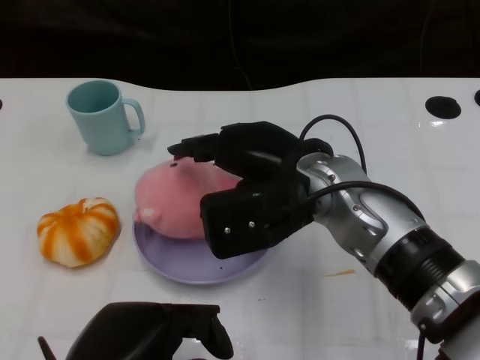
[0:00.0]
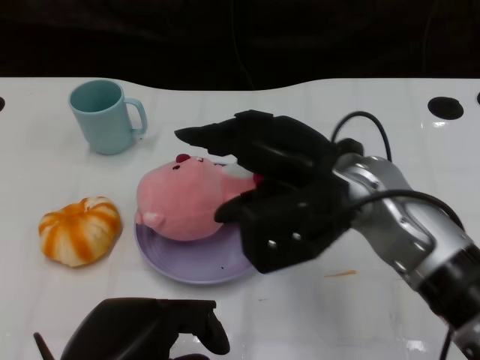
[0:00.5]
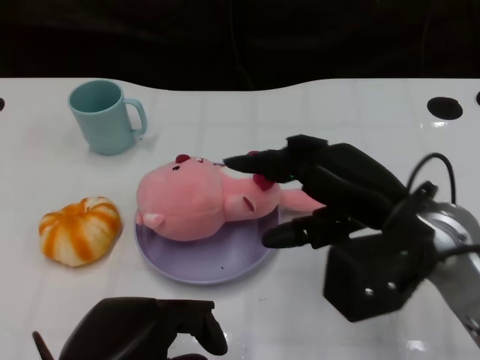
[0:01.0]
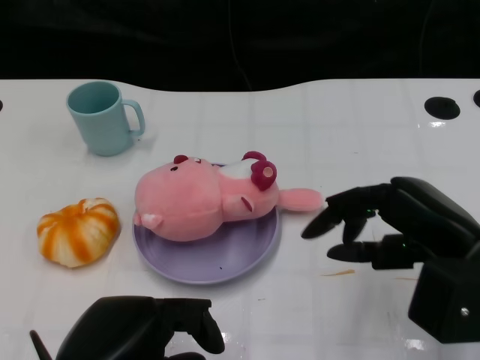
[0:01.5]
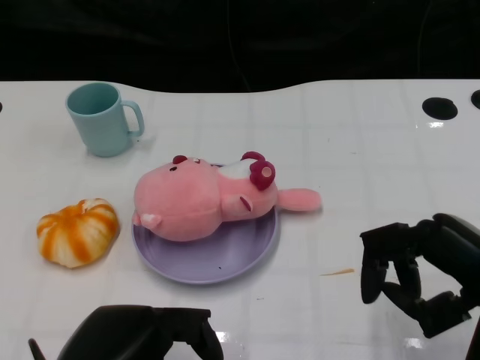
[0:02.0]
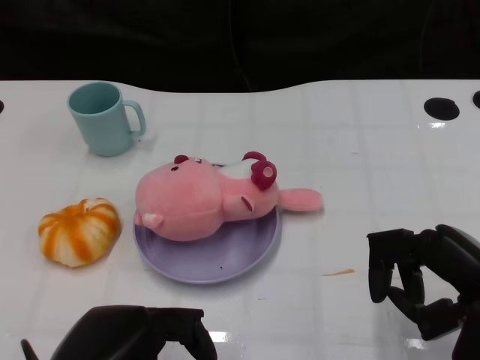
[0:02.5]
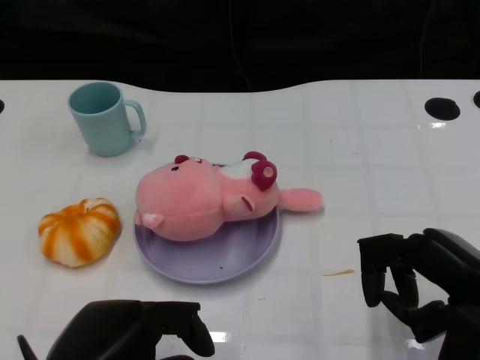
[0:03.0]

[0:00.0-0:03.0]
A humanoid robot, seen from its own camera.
Task of the whole recording: Pick up the doll on the other side of the plate and place it into the plate.
0:00.0 to 0:01.5: The right hand goes approximately 15 cm to the right and backward.
0:01.5 to 0:03.0: The right hand changes place by about 5 cm.

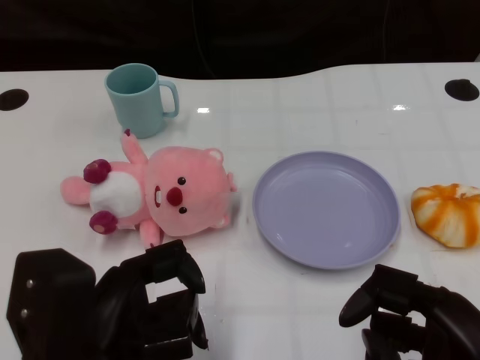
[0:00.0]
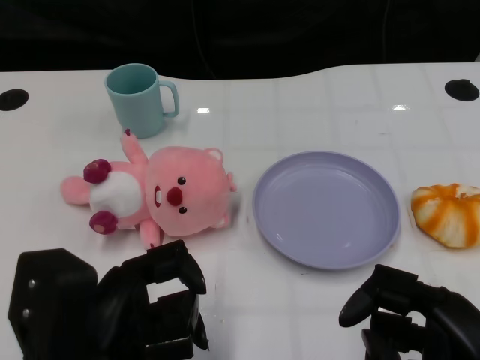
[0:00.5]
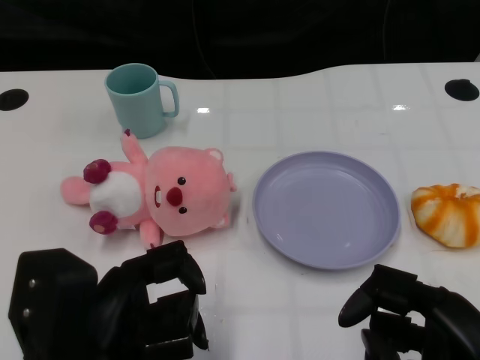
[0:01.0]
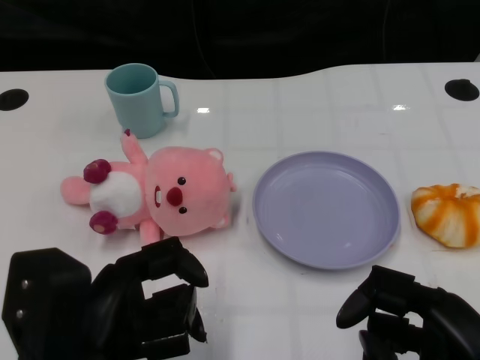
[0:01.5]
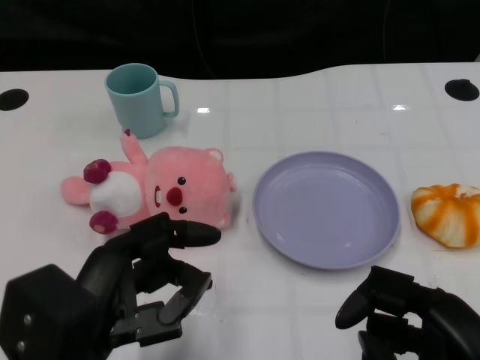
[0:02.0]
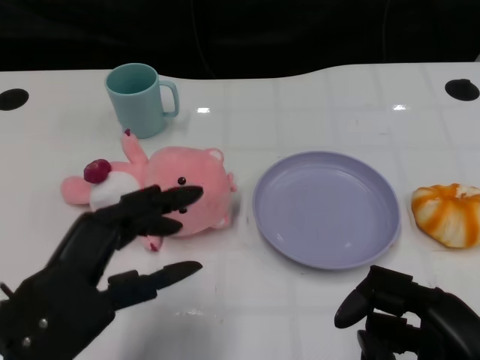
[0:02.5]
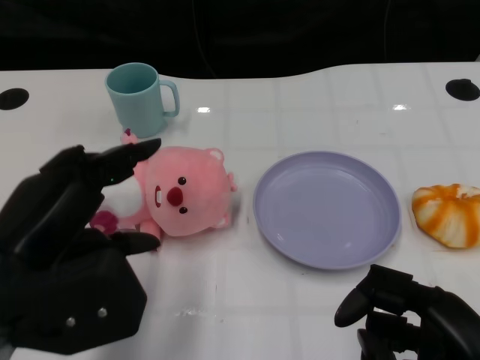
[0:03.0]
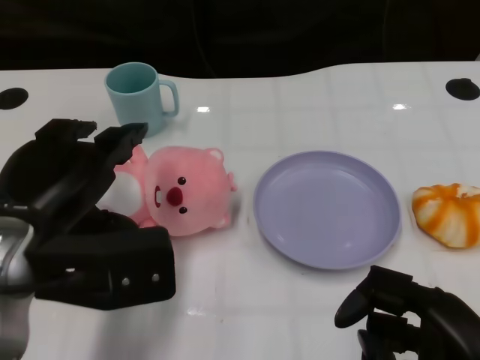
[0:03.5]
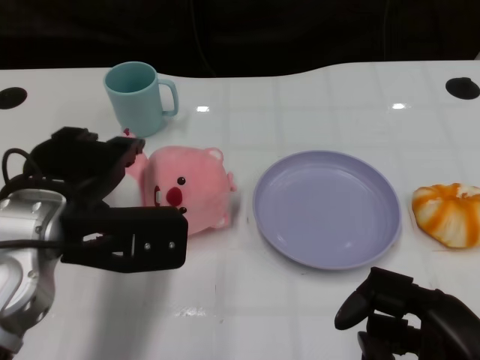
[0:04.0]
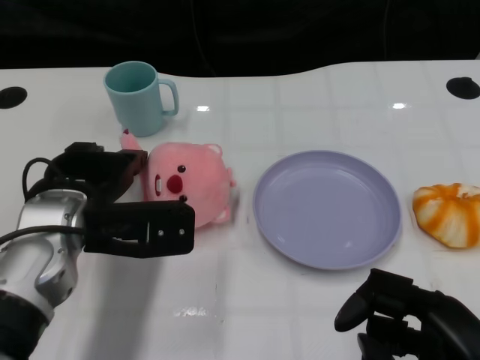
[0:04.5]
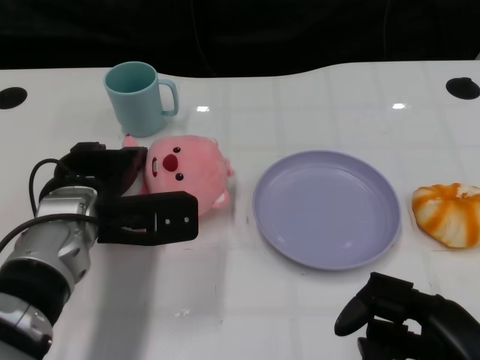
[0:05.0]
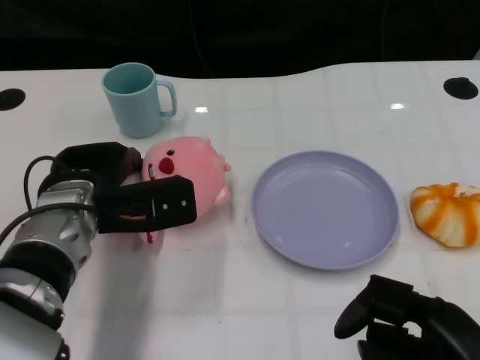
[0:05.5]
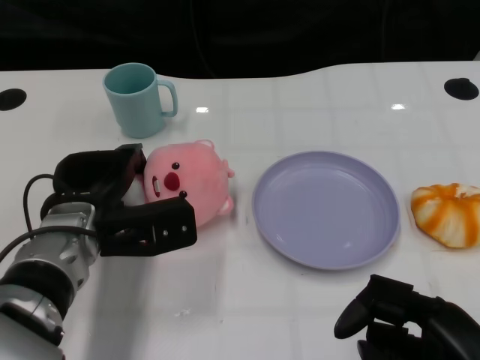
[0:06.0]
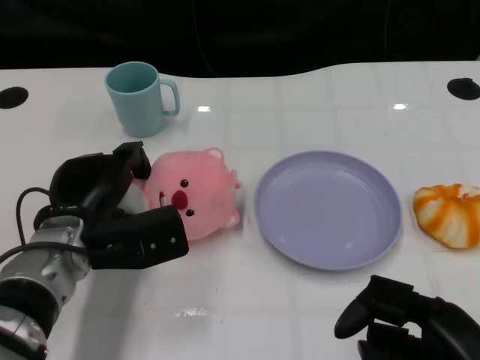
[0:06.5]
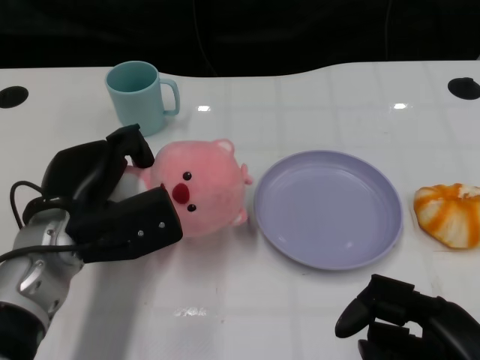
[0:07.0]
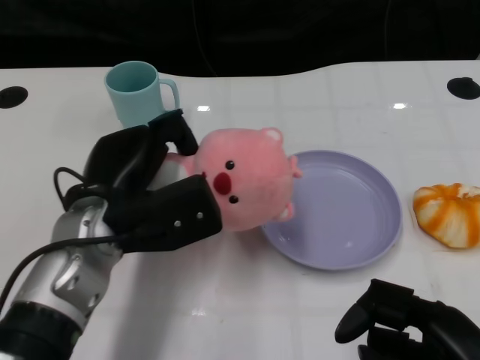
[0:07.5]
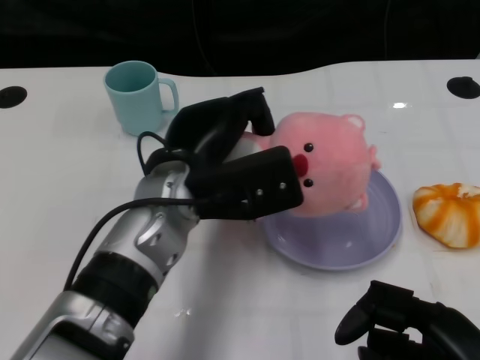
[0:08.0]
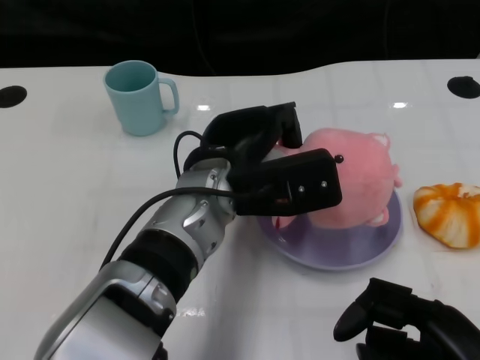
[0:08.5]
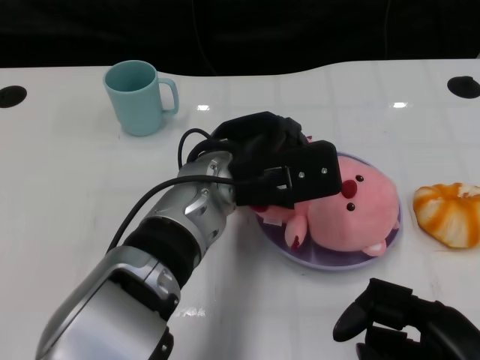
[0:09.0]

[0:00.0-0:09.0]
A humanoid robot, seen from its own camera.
Task of the whole recording: Pick up the doll on one side of the plate and place it into the plate.
Step, 0:01.5 to 0:06.5: Grasp the pink doll with the left gripper.
0:02.0 to 0:04.5: The left hand travels forward by approximately 15 cm.
0:07.0 to 0:09.0: The left hand is displaced to the right by roughly 15 cm.

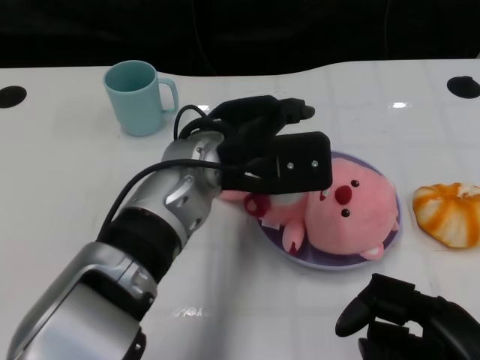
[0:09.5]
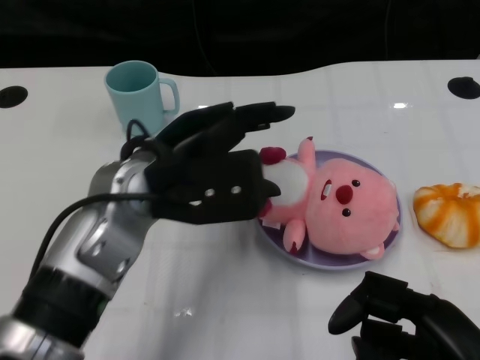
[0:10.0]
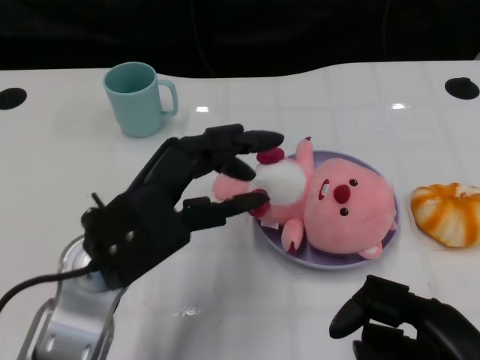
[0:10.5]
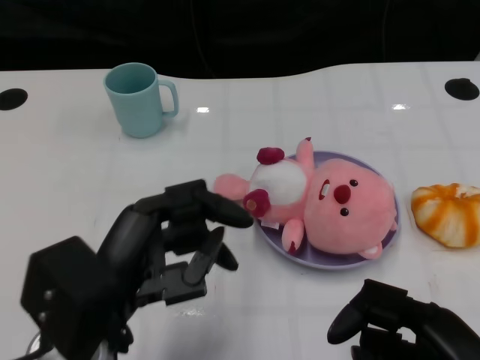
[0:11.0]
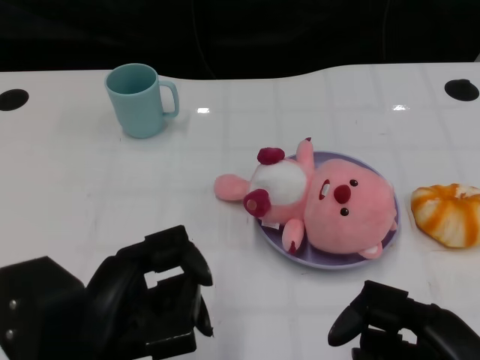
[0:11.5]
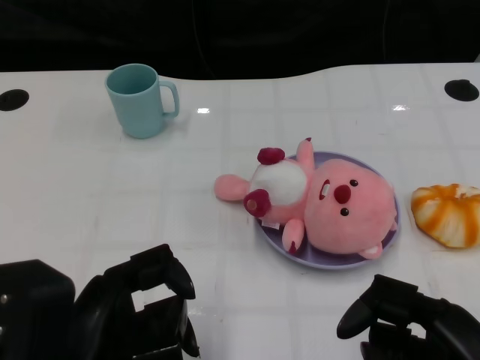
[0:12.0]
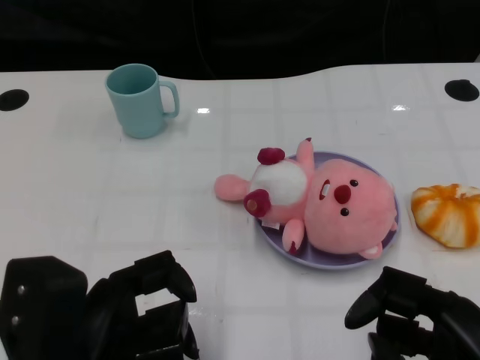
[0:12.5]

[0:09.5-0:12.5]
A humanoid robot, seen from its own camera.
Task of the whole recording: Pick up the doll on one side of the plate and place it into the plate.
0:09.5 to 0:11.0: The left hand heads backward and to the left, covering roughly 20 cm.
